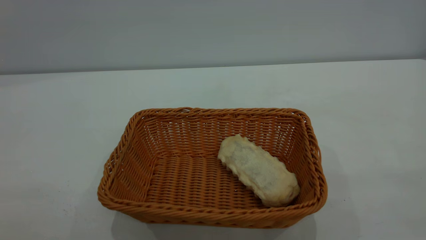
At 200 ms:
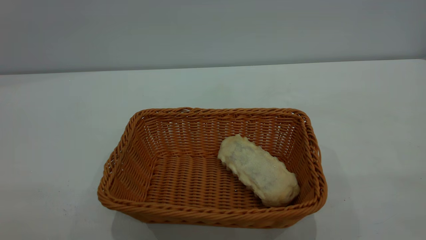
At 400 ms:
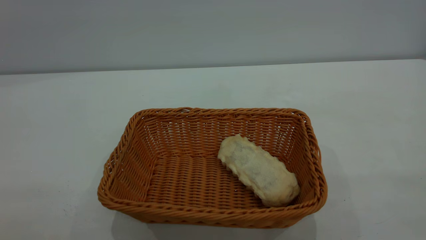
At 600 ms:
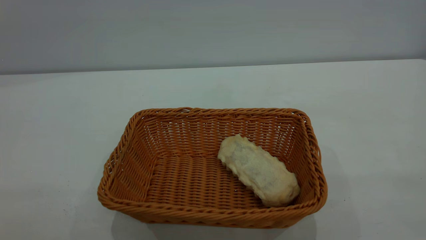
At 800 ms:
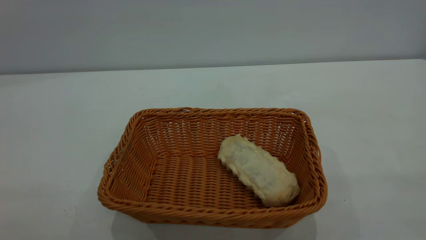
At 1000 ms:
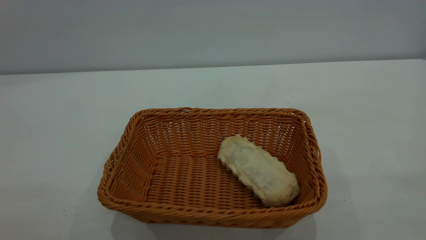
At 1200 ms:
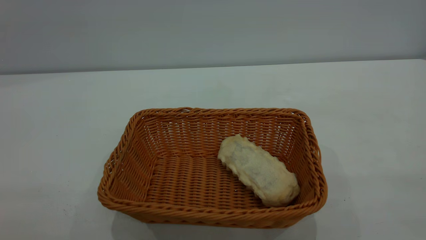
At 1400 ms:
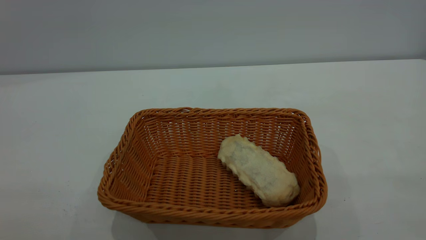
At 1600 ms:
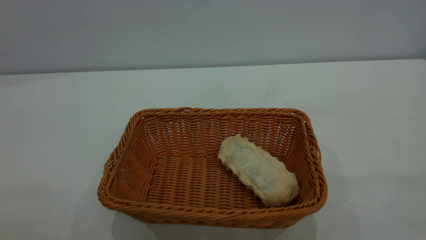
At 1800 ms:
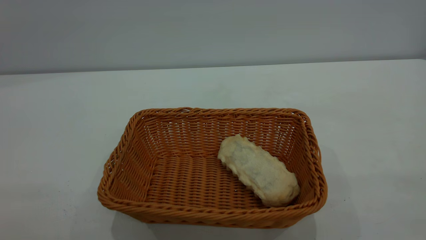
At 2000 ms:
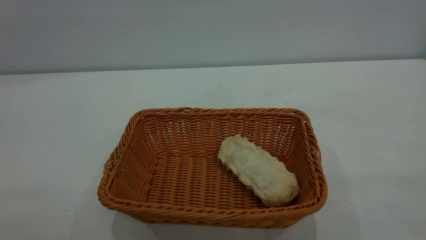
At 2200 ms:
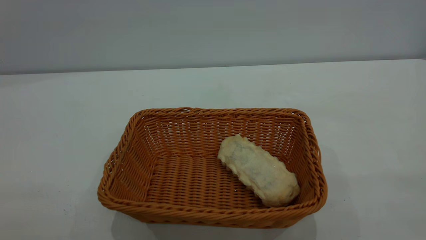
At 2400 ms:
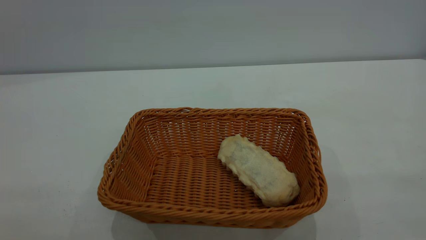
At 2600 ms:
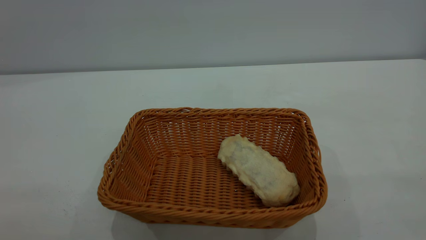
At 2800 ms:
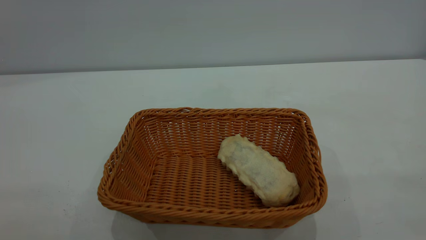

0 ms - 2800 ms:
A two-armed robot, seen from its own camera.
Task of the whole recording: One hand grasps the yellow basket and places it in the middle of the table, while the other hand picks up the long bread and puts it into the yellow basket.
0 ms - 2800 ms: Both grippers stay put.
